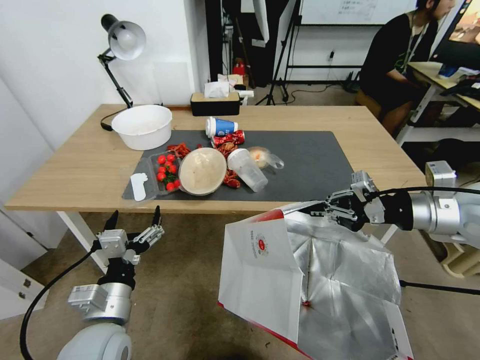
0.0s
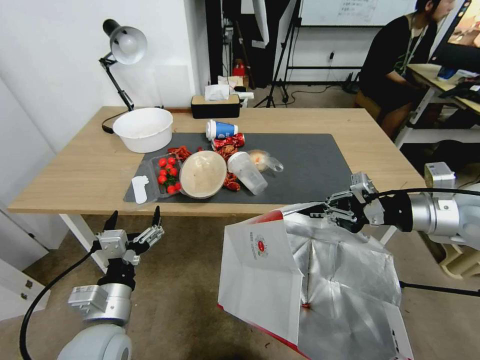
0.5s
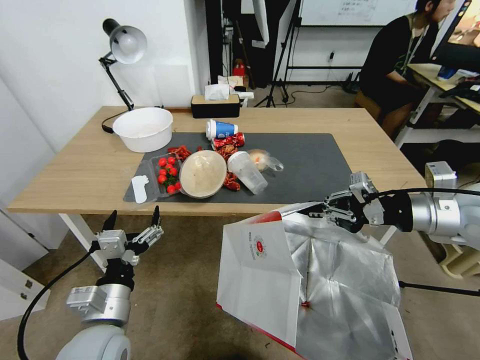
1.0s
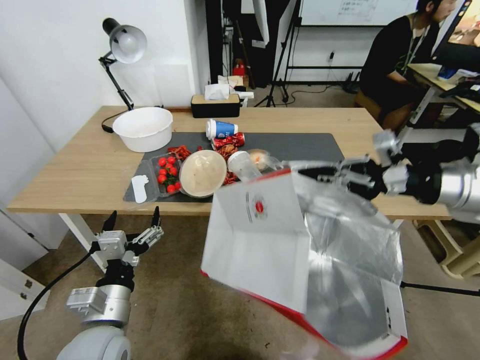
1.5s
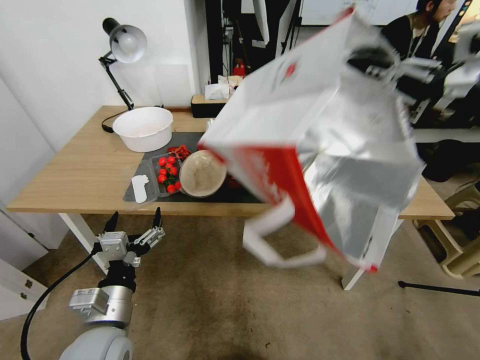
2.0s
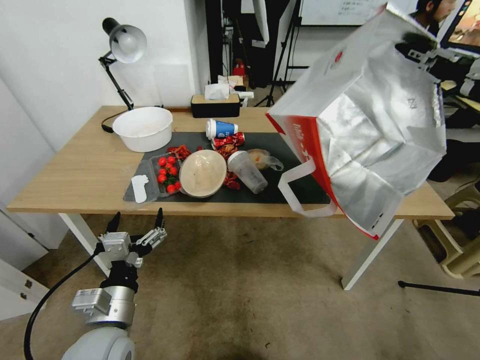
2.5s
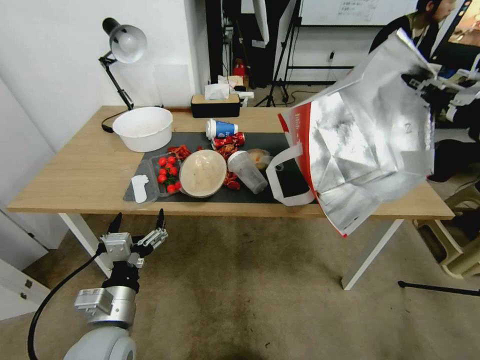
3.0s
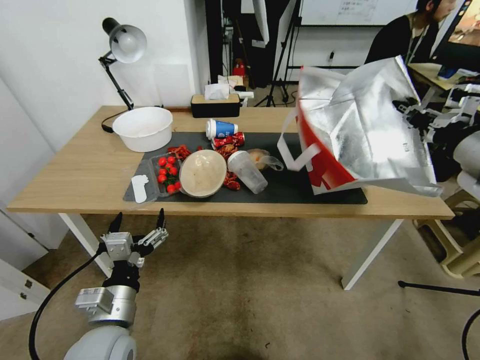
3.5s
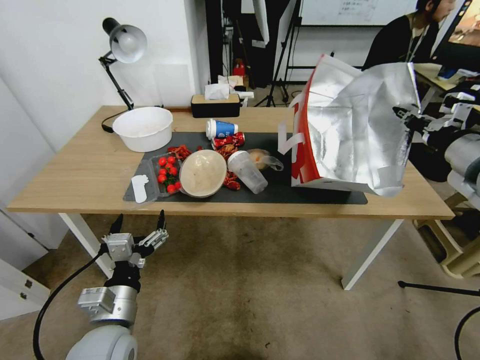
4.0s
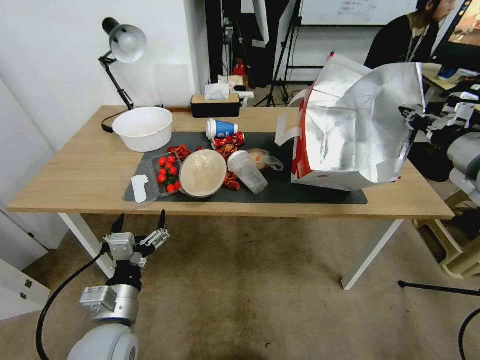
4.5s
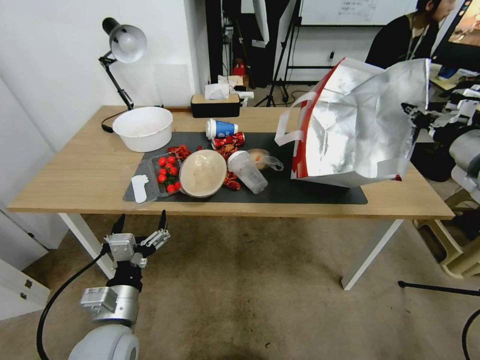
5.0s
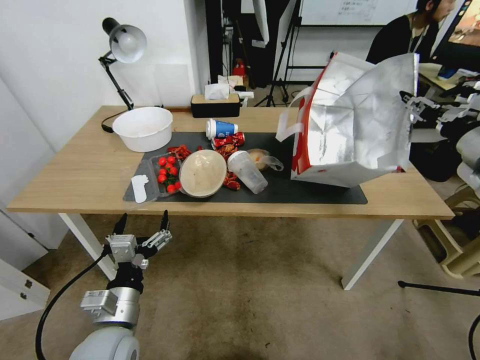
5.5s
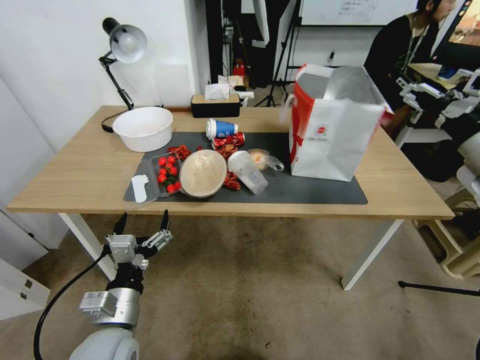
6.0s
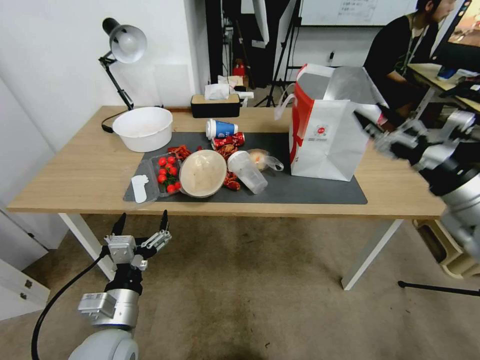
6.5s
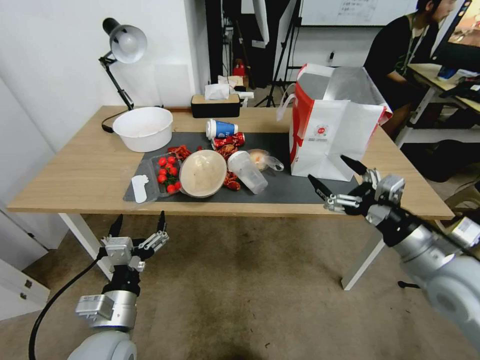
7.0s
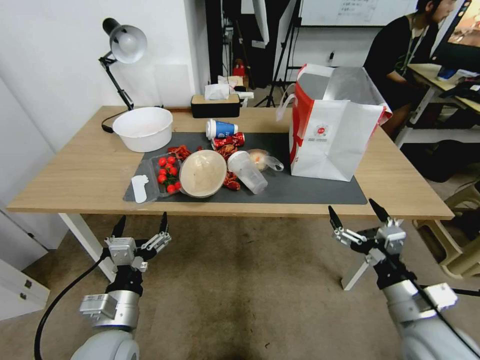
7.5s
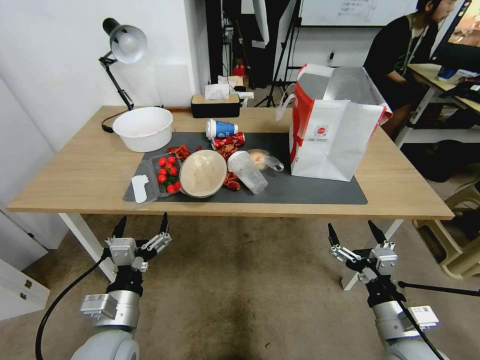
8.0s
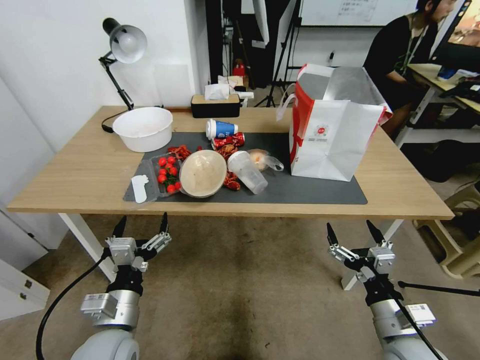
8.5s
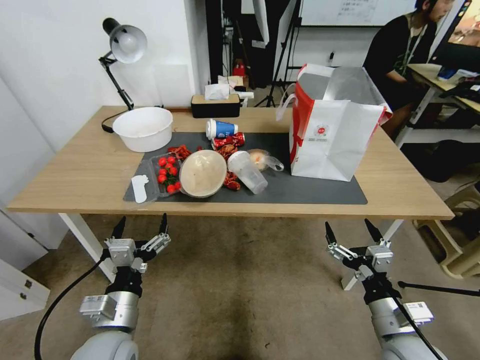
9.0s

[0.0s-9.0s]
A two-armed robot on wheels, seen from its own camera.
Task of the whole recording: Pick up the food delivery bag from the floor and place it on the table.
0.0s to 2.0s: The right gripper goes some 10 cm upward.
2.0s to 4.5s: The right gripper shifts about 5 cm downward.
4.5s to 7.0s: The right gripper heads downward, backward and to the left, covering about 20 cm, and opens its fingers.
7.0s to 9.0s: The right gripper heads downward and backward, covering approximately 15 cm.
